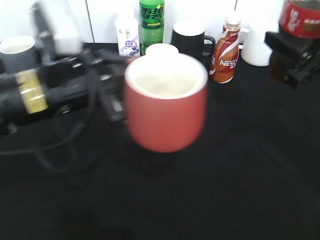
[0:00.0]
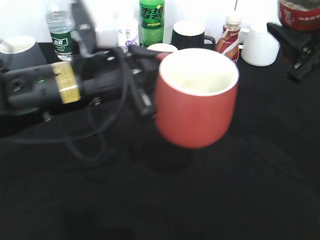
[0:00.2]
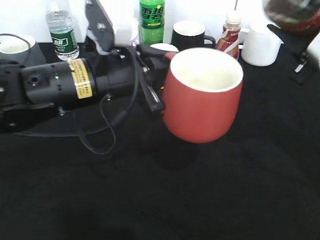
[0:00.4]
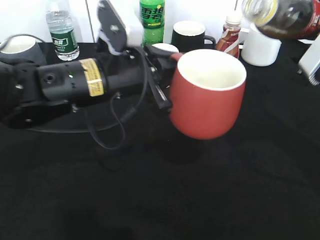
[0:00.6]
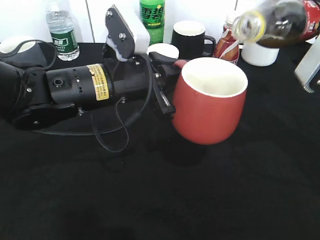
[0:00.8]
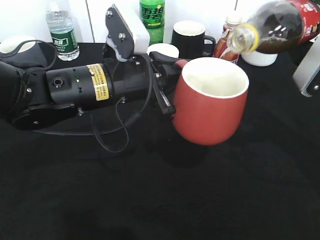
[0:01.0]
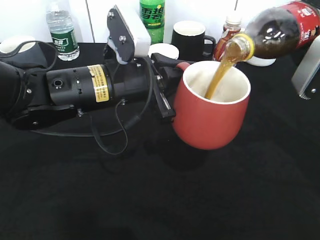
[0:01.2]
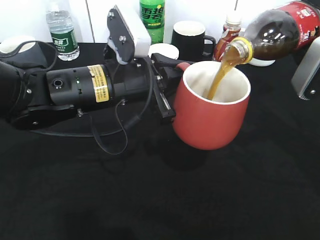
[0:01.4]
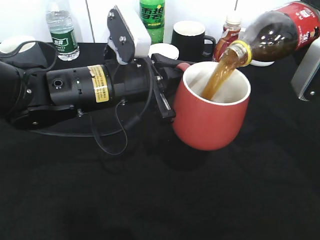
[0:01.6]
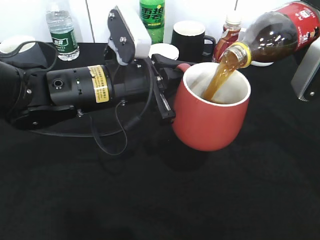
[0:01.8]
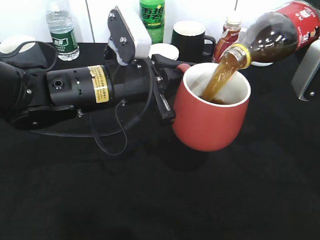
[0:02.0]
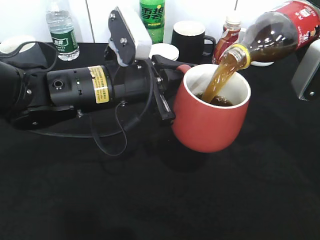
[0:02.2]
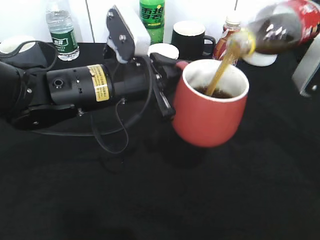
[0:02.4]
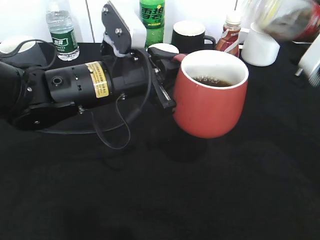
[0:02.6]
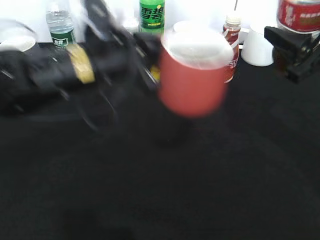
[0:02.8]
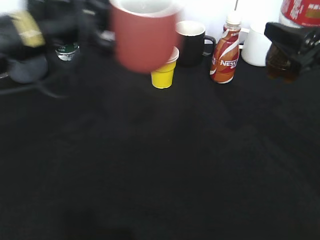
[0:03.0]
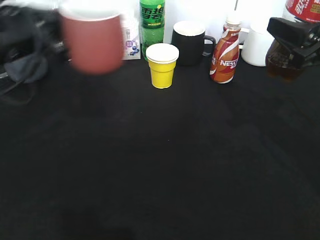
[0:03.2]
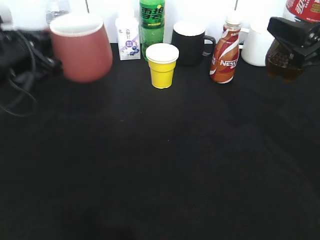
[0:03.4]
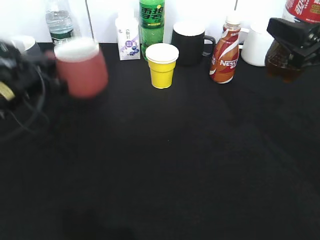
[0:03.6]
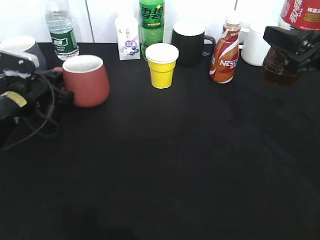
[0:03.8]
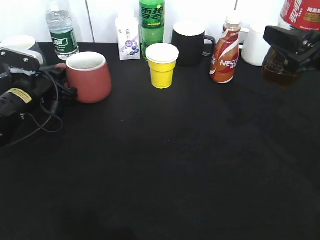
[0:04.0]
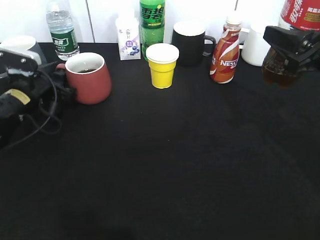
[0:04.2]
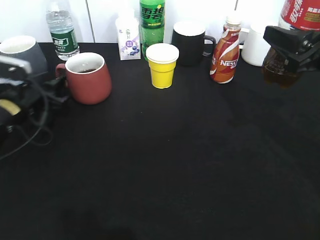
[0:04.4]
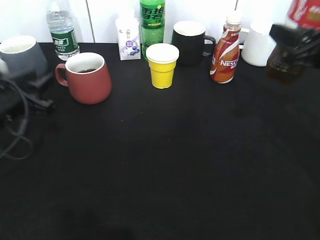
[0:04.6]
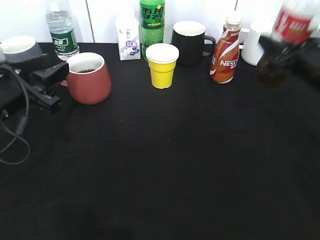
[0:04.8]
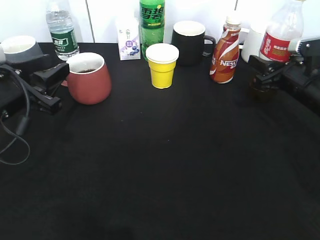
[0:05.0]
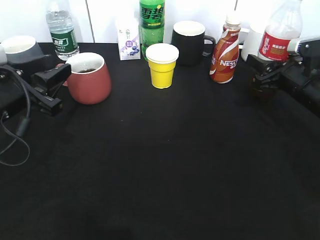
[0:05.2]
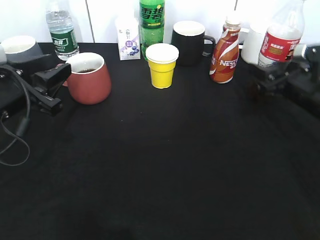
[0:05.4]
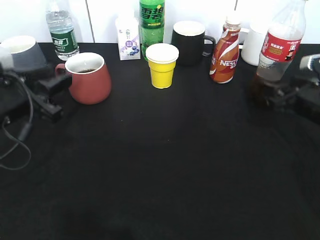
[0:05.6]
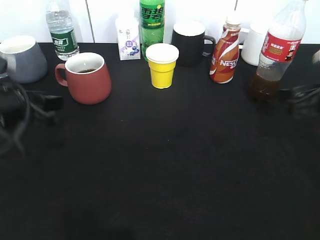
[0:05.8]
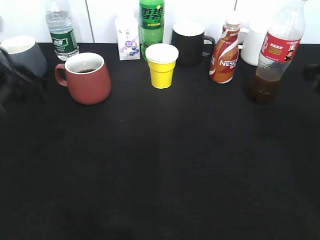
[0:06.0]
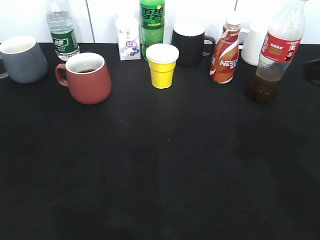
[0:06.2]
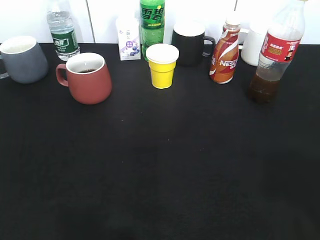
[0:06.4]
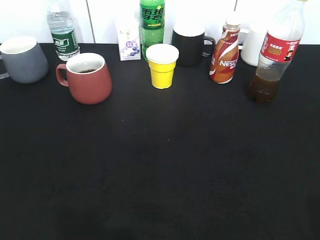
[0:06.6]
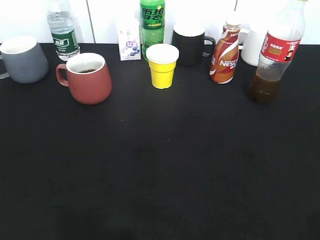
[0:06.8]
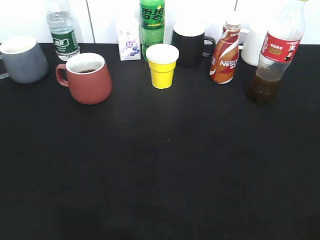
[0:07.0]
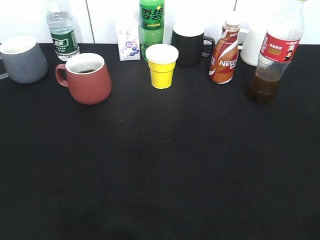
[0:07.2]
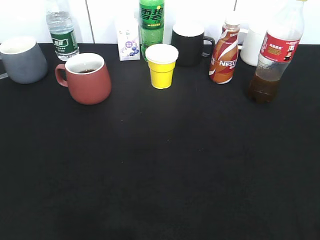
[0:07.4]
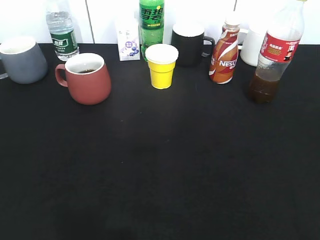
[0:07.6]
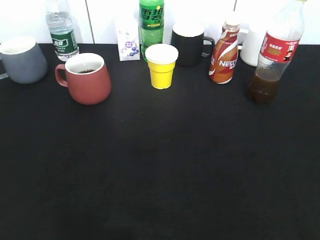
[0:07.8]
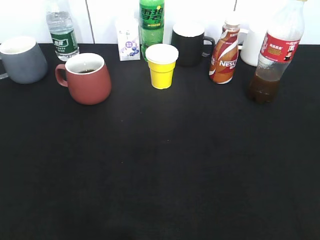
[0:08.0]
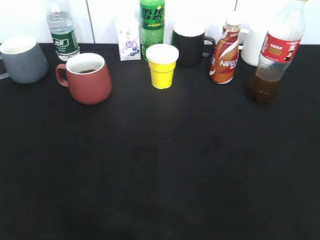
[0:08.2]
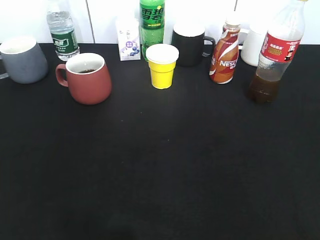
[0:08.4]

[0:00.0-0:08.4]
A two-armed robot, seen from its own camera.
Step, 0:00.0 to 0:02.6: Pour the cola from bottle to cup with right gripper.
Step, 0:02.8 to 0:04.4: Place the red cup on the table with left gripper.
Step, 0:04.6 to 0:05.8: Place the cola bottle on the table with right gripper.
0:00.0 to 0:01.4: The left gripper travels to the right by about 5 cm.
0:02.8 to 0:04.2: The left gripper goes roughly 20 cm to the left, downward and forward, and opens its fingers.
0:04.2 to 0:05.6: The left gripper moves backward and upward, roughly 15 cm, while the right gripper travels downward by roughly 10 cm, and opens its fingers.
0:05.6 to 0:07.0: Both grippers travel together backward and upward, approximately 30 cm. The right gripper closes up.
